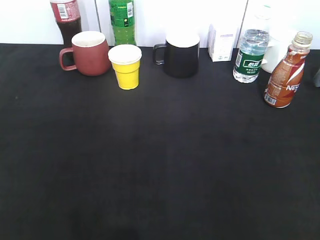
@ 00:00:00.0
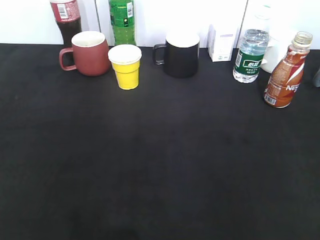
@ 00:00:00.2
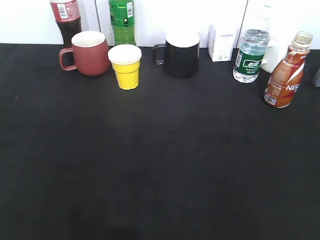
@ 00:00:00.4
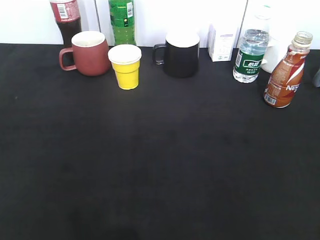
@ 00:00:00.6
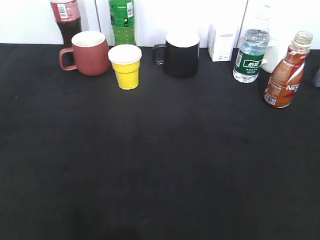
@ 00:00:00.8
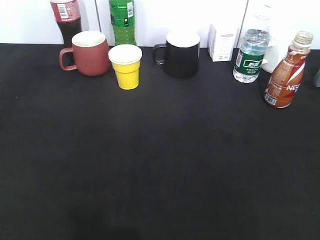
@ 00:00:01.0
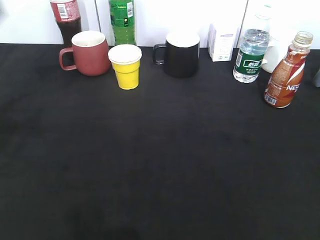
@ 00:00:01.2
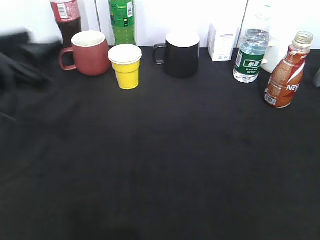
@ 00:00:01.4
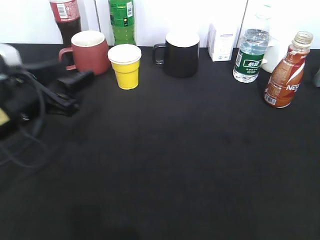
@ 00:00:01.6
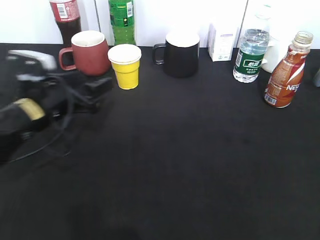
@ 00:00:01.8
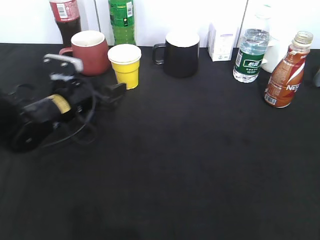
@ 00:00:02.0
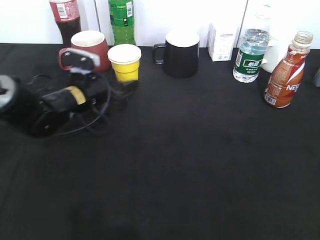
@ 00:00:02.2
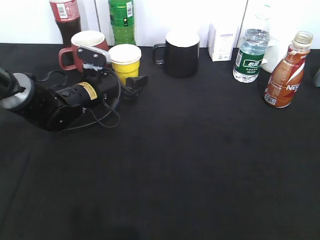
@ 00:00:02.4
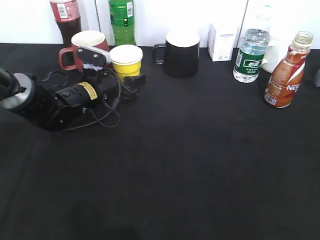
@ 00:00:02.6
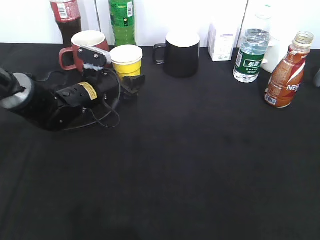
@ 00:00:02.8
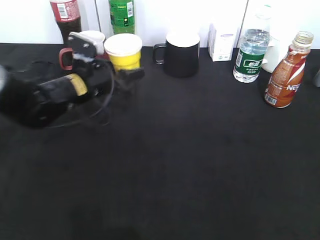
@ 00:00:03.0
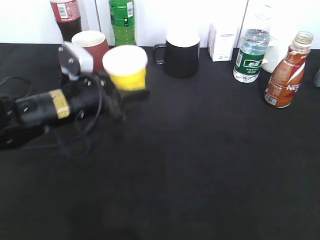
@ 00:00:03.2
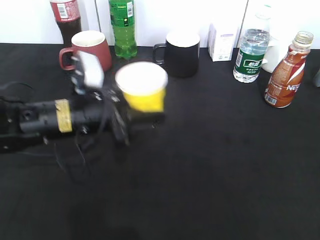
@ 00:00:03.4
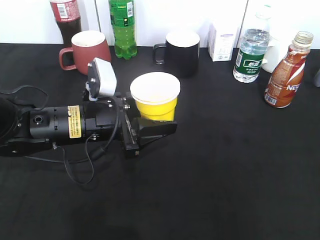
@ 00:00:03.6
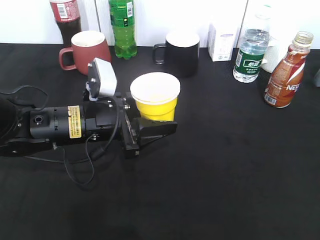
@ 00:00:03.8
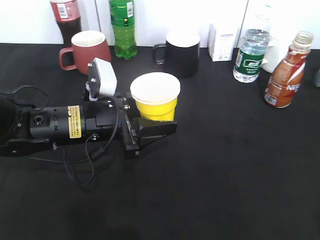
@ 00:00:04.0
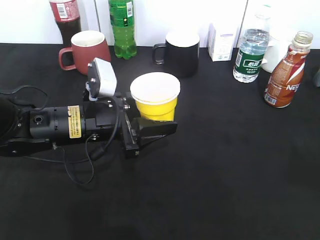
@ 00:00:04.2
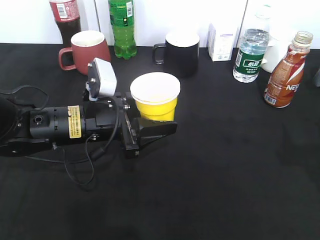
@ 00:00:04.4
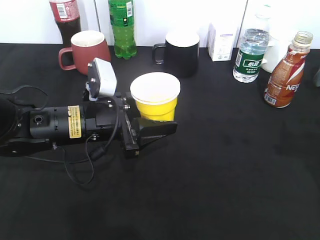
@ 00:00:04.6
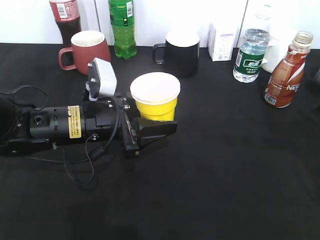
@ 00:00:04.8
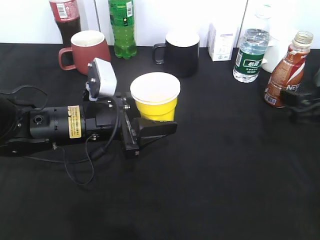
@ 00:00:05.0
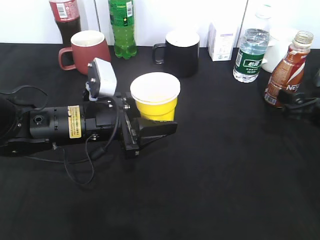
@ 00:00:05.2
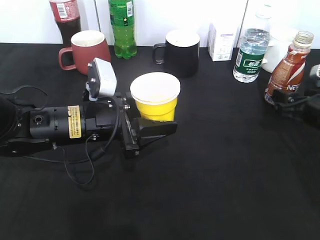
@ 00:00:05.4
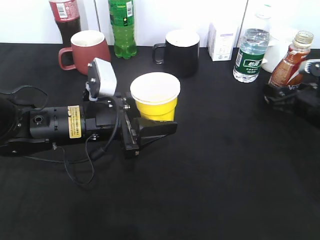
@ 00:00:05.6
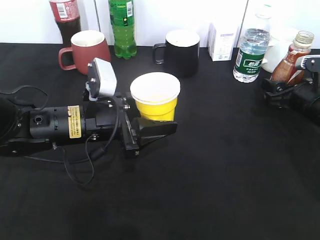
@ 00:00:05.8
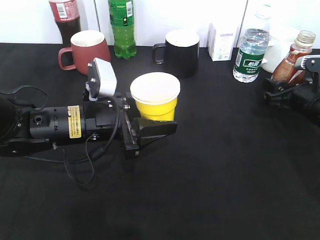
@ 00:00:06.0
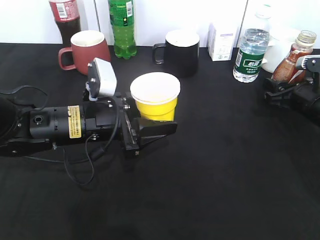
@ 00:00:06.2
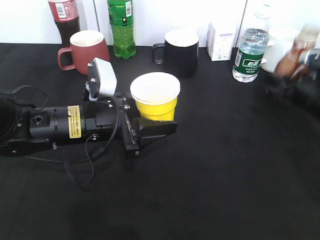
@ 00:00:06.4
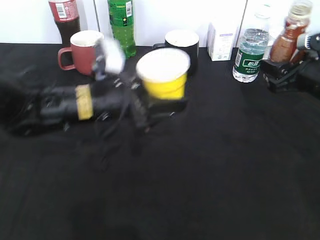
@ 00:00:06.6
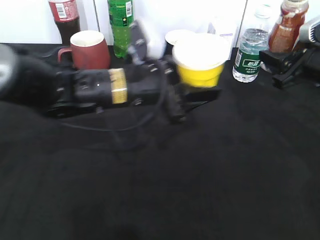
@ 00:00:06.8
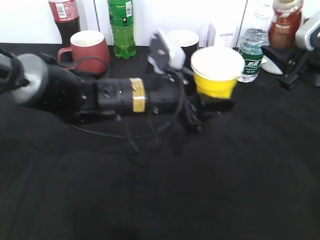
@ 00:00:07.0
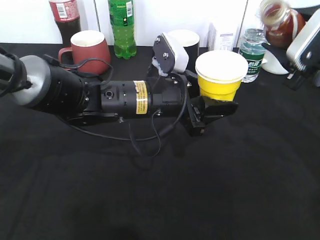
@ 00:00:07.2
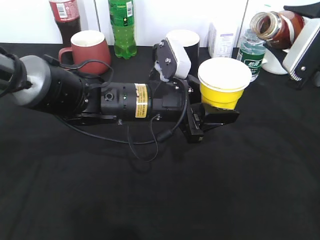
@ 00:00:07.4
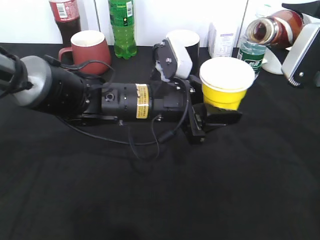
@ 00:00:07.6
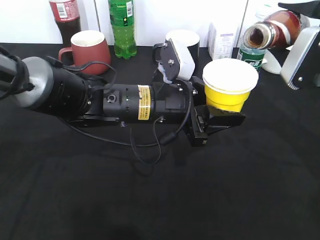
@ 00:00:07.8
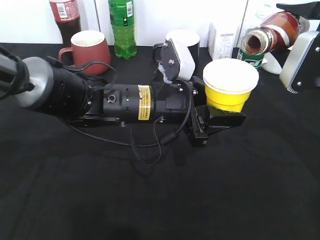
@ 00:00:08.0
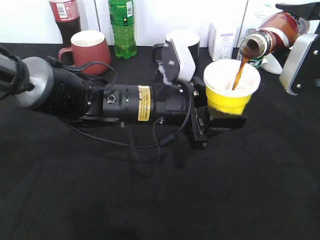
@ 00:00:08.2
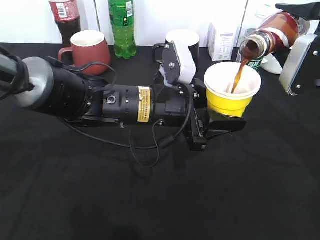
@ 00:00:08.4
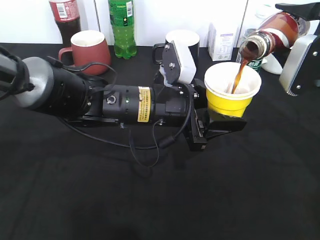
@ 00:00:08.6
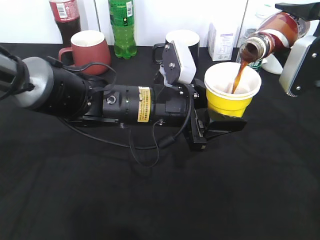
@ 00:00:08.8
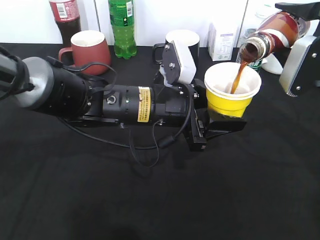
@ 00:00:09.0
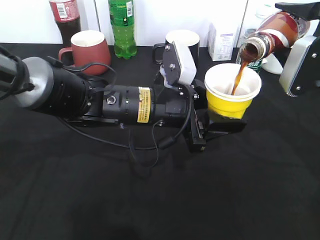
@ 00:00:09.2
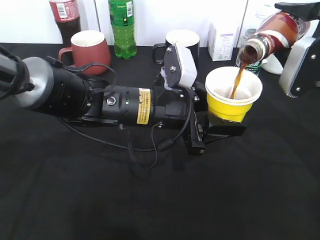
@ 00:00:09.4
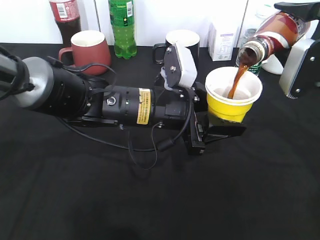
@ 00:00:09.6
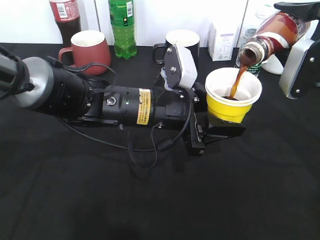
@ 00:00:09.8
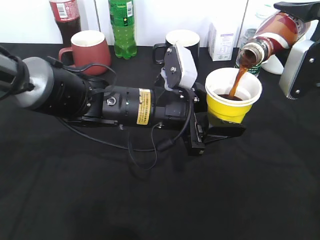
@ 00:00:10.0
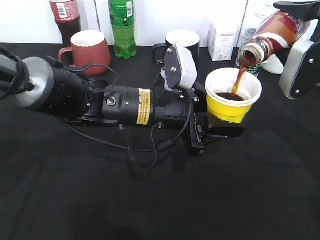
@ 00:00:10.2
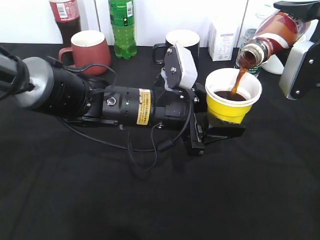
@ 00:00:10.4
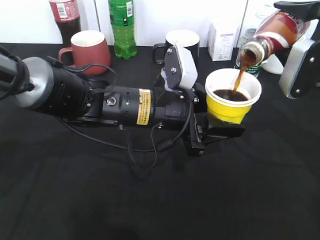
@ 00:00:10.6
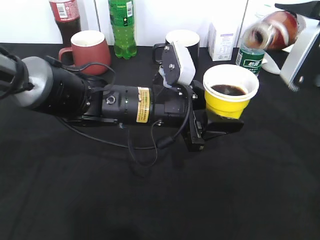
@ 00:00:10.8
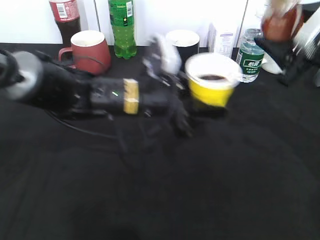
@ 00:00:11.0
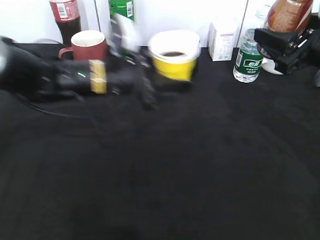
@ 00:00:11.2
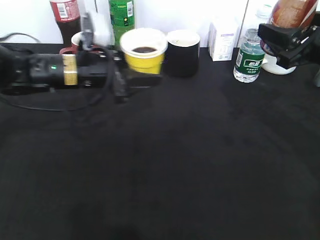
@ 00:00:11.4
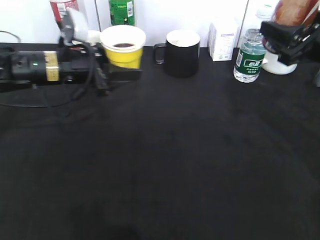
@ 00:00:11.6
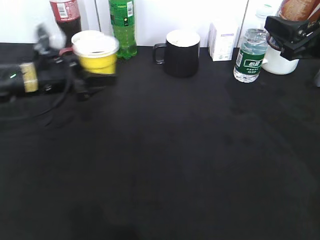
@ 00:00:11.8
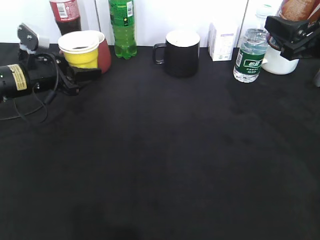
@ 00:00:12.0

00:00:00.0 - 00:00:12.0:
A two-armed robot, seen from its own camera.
Step, 00:00:01.2 - 00:00:02.6: Grasp the yellow paper cup with left gripper.
Step, 00:00:02.8 - 00:00:04.6: Lift the yellow paper cup with left gripper.
Step, 00:00:04.8 - 00:00:06.2: Grasp the bottle with coffee with right gripper.
Step, 00:00:06.4 - 00:00:10.8: Pour the coffee from bottle to cup with right gripper.
00:00:00.0 - 00:00:01.6: The left gripper shifts about 30 cm forward, to the right and downward, and opens its fingers.
00:00:01.6 - 00:00:03.0: The left gripper travels forward and to the right by about 15 cm, and closes up.
00:00:03.0 - 00:00:04.4: The right gripper moves forward, some 15 cm. Meanwhile the left gripper goes approximately 10 cm backward.
00:00:04.4 - 00:00:06.0: The right gripper moves forward and downward, roughly 25 cm, and closes its fingers.
00:00:06.0 - 00:00:07.6: The right gripper moves upward, roughly 15 cm; the left gripper goes about 10 cm to the right.
00:00:07.6 - 00:00:10.4: The grippers stay close to where they were, moving slightly.
00:00:10.4 - 00:00:12.0: The left gripper goes about 25 cm to the left and forward.

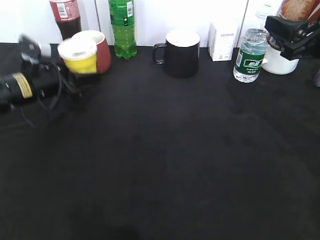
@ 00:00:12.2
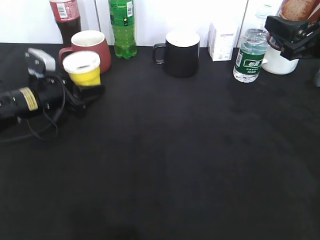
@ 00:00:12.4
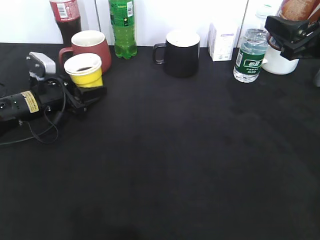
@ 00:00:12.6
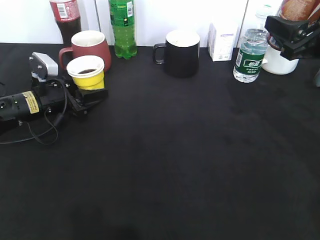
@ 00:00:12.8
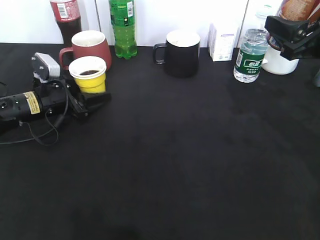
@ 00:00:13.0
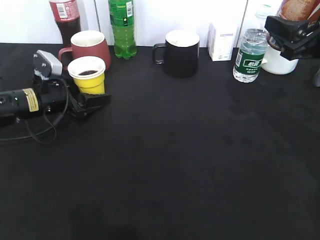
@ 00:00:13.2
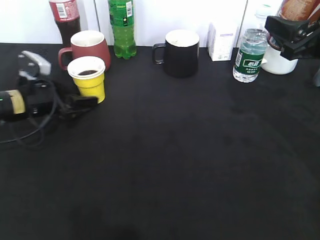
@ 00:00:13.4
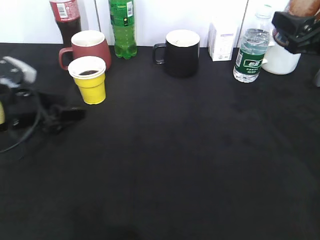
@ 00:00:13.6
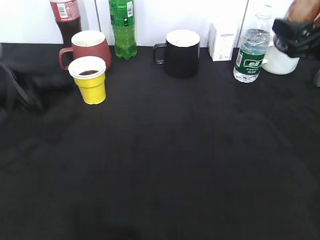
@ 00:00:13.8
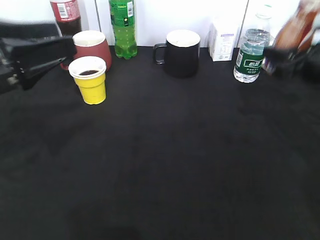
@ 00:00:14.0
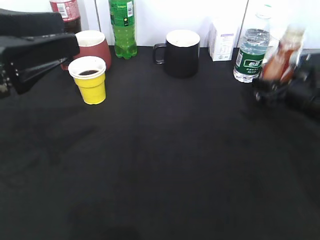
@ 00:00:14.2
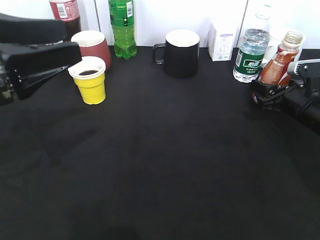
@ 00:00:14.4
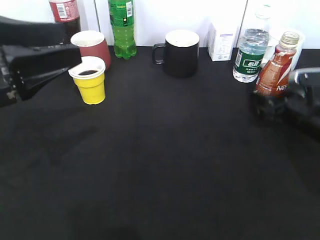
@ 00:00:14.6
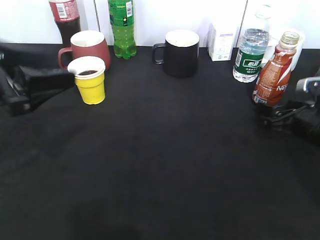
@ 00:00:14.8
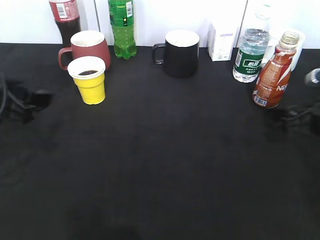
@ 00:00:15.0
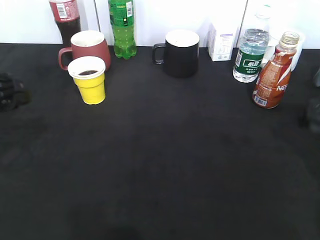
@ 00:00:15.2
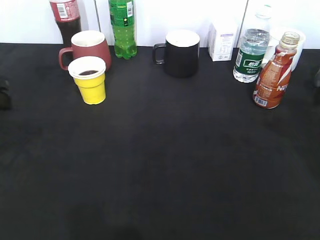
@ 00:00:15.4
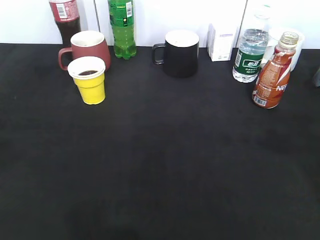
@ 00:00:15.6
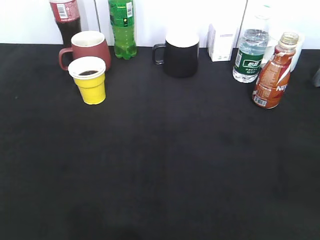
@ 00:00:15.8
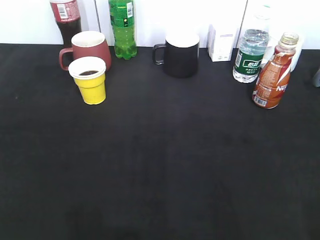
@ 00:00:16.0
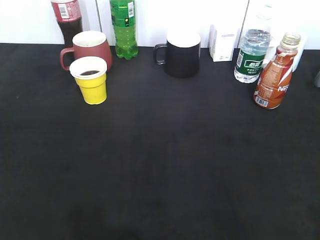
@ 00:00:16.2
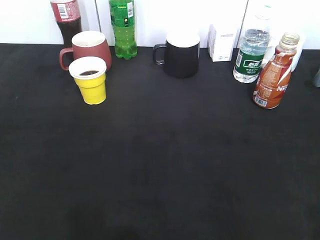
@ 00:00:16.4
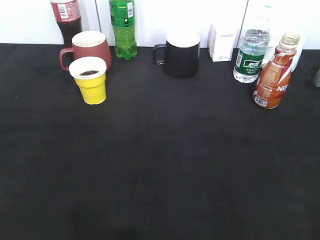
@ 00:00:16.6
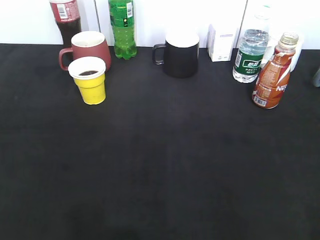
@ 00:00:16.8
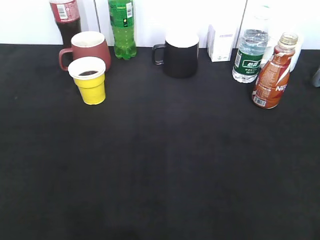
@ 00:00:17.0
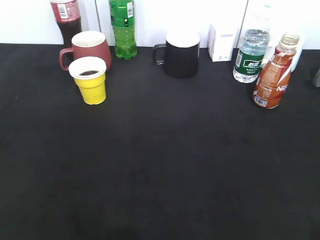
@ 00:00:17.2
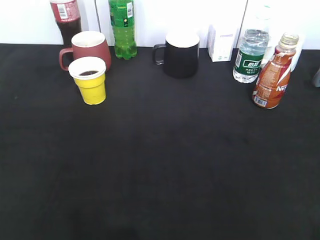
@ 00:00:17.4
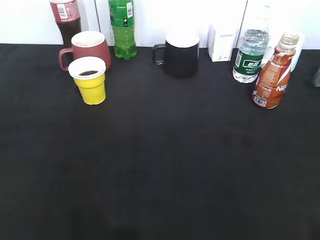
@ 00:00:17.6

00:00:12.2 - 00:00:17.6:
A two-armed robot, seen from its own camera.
Step, 00:00:13.4 - 00:00:14.4: Place the coffee bottle on the table with right gripper.
00:00:12.2 - 00:00:13.6: The left gripper travels backward by roughly 10 cm, and opens up.
00:00:13.6 - 00:00:15.0: The right gripper heads downward, covering approximately 10 cm, and opens, while the left gripper travels upward and backward by about 10 cm.
00:00:15.0 - 00:00:16.2: The left gripper shifts about 20 cm backward, and closes its fingers, while the right gripper travels backward and upward by about 30 cm, and closes.
